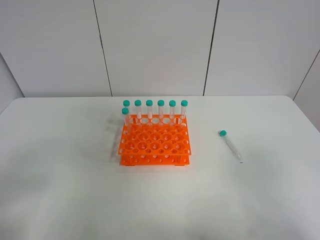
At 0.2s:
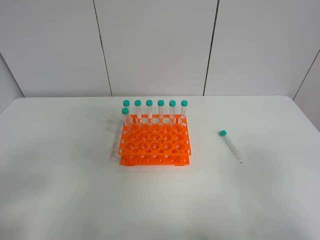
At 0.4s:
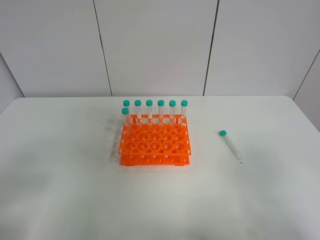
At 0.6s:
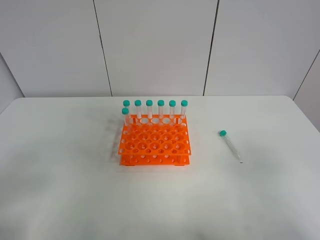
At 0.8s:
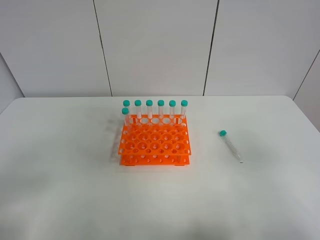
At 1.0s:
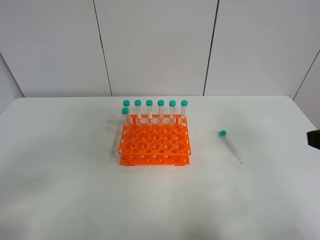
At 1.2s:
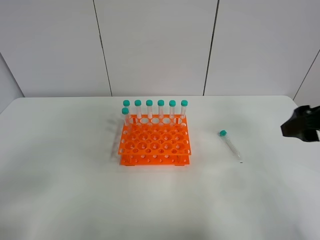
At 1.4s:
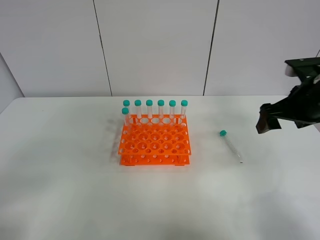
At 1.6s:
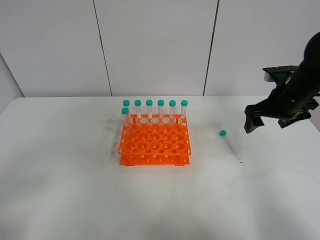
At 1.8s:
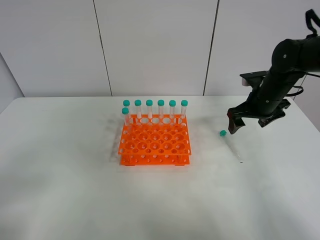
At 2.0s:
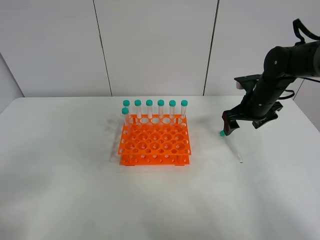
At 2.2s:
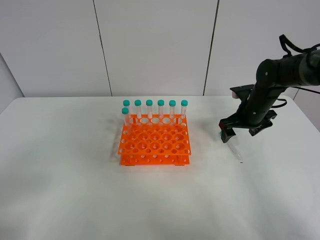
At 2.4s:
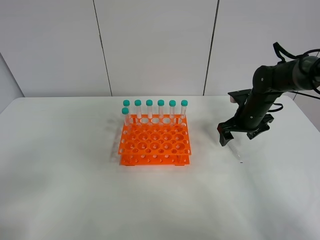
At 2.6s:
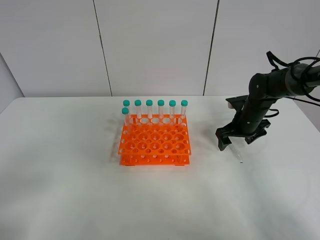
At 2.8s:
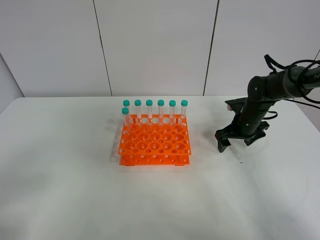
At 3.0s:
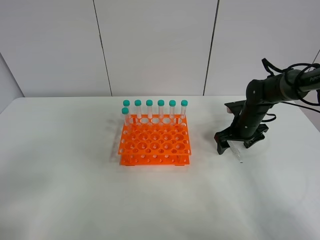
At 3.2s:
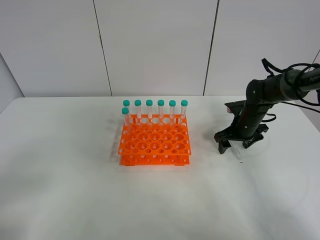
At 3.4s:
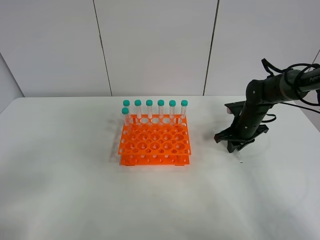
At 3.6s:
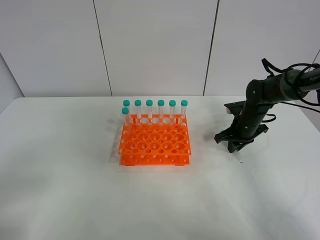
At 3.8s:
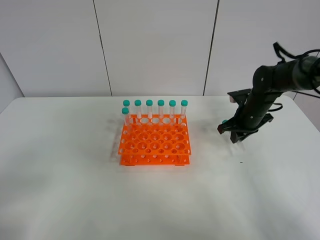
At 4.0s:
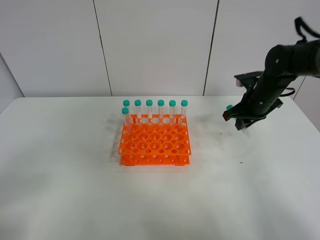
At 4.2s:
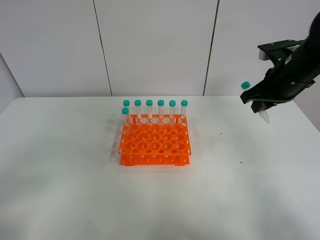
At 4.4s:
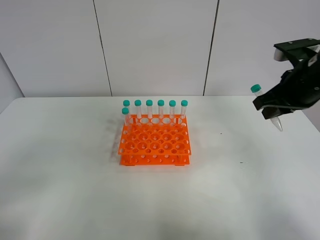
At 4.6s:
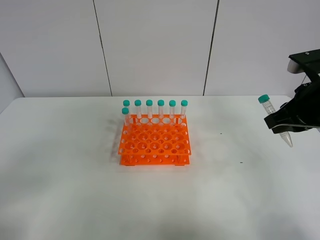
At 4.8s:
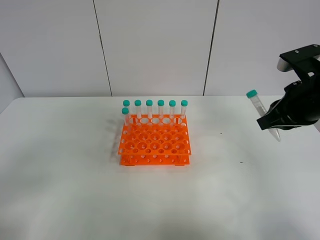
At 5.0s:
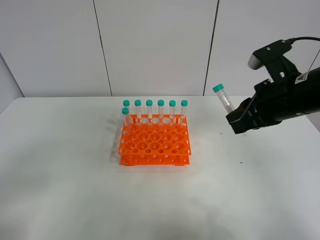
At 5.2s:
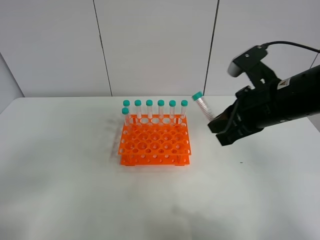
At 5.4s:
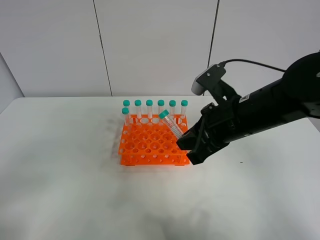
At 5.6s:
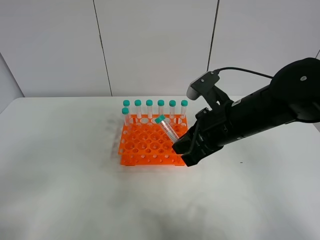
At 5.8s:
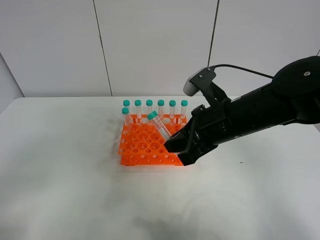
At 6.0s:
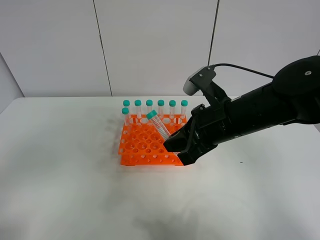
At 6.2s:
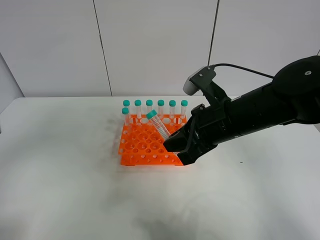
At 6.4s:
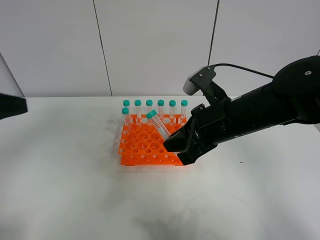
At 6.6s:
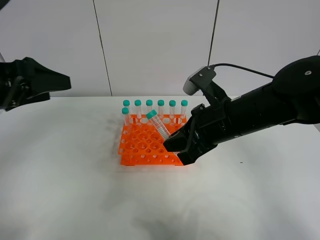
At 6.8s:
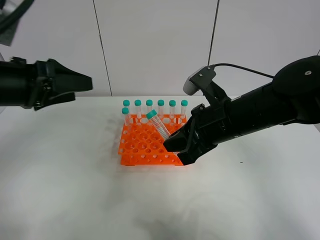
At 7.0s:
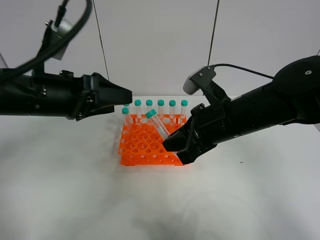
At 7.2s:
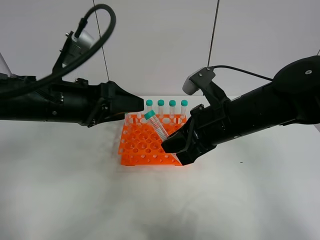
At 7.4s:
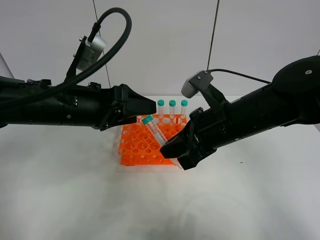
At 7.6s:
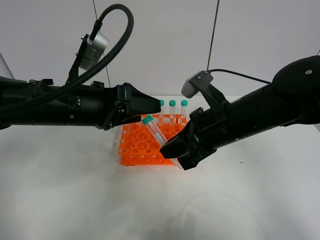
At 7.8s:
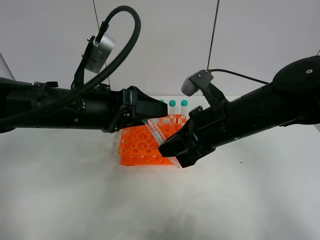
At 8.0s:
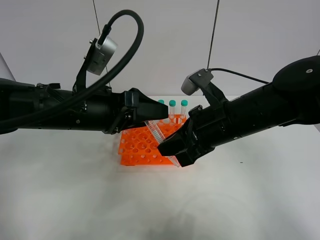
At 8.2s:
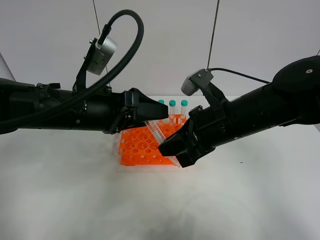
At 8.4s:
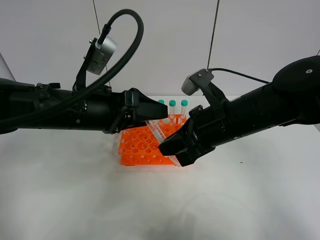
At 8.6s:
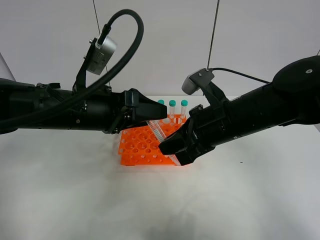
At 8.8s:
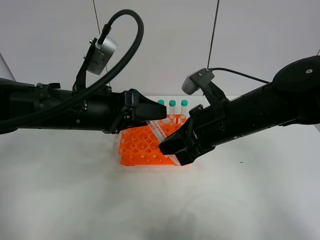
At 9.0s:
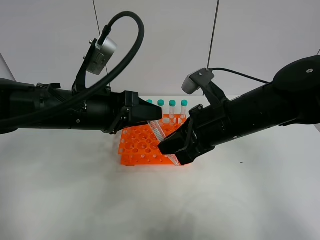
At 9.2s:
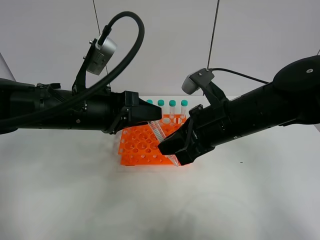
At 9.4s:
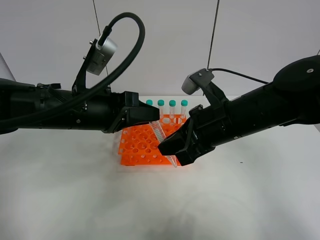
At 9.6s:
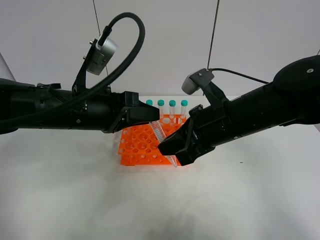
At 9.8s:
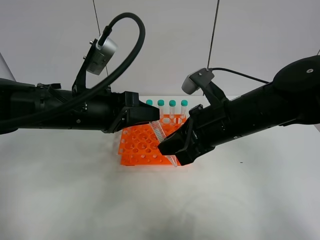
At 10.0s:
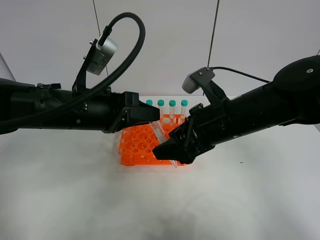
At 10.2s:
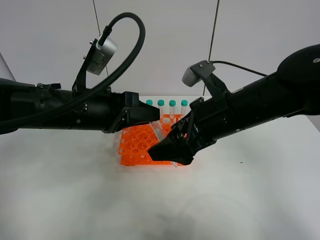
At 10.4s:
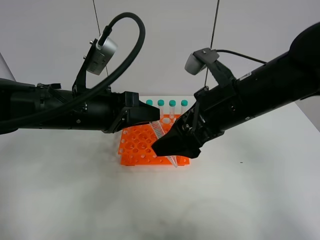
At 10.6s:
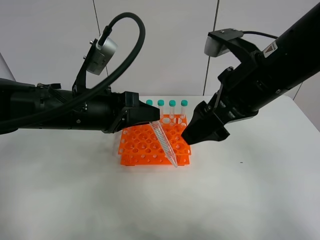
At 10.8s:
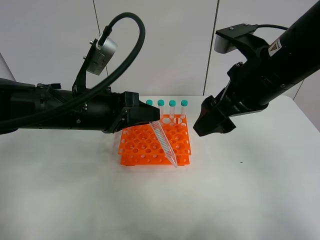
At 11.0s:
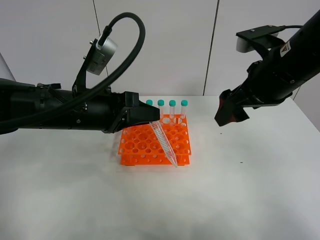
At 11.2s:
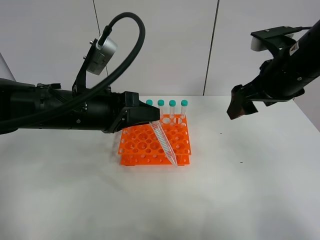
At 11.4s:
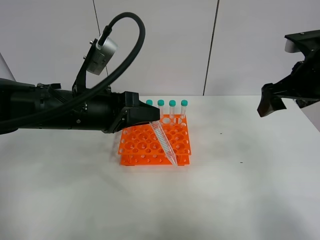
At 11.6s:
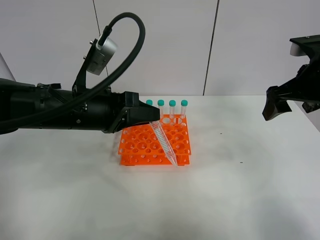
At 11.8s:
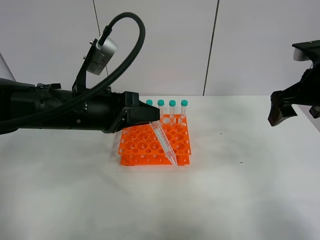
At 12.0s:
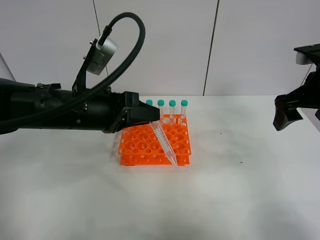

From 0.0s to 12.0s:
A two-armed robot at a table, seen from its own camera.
Task of the whole recording: Put the test tube on the table back onto the test tube rack.
Step, from 0.0s to 3.6s: Pick up the test tube with the right gripper.
Step, from 3.8s to 10.8s: Move the test tube from the right gripper to the left gripper.
From 0.0s to 1.6s: The right gripper shifts roughly 35 cm forward.
From 1.6s to 3.0s: The right gripper travels downward and forward by some 15 cm.
From 3.0s to 4.4s: The right gripper is displaced upward and backward by roughly 25 cm, and closes.
From 4.4s to 6.0s: The right gripper goes roughly 15 cm to the left.
From 6.0s to 7.6s: The left gripper moves forward and to the right, about 25 cm.
From 7.6s to 9.0s: The left gripper closes.
From 9.0s to 10.4s: The right gripper heads upward, covering some 5 cm, and opens its fingers. The left gripper closes.
From 10.4s to 12.0s: The right gripper goes approximately 15 cm to the right.

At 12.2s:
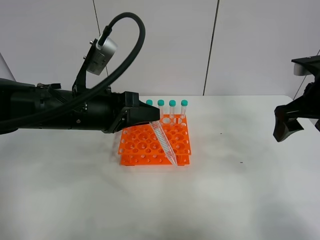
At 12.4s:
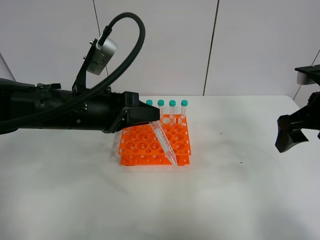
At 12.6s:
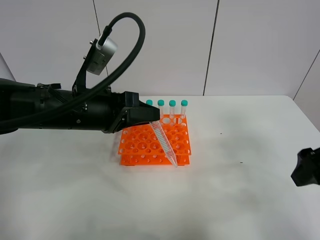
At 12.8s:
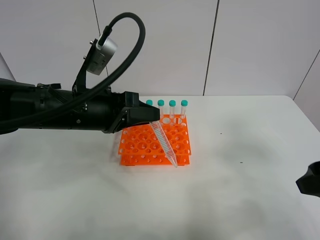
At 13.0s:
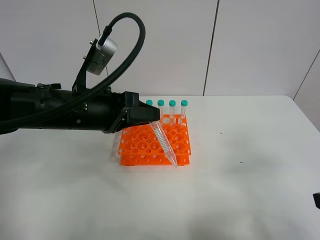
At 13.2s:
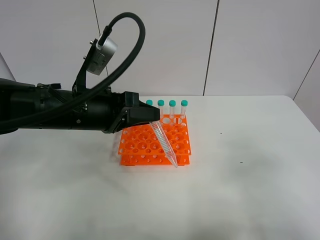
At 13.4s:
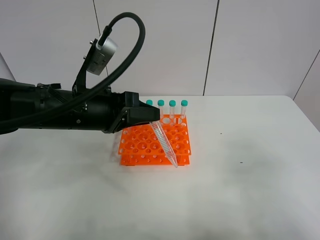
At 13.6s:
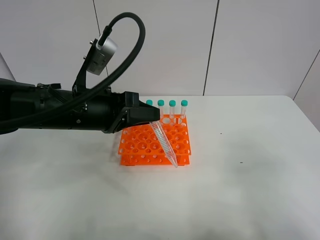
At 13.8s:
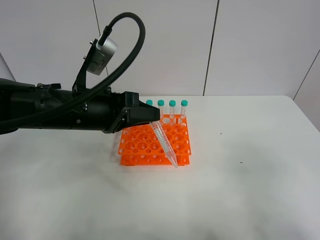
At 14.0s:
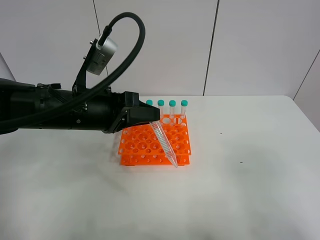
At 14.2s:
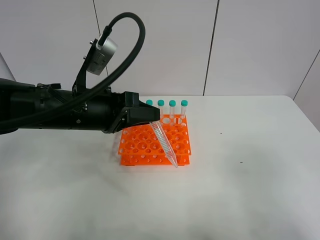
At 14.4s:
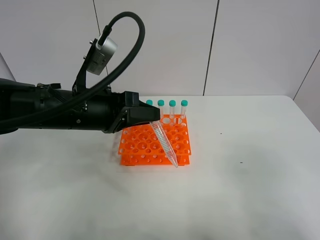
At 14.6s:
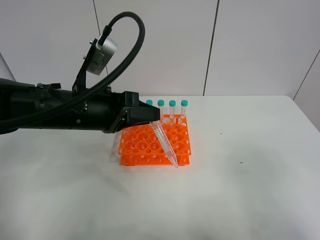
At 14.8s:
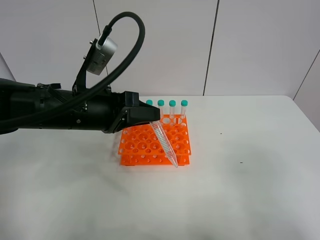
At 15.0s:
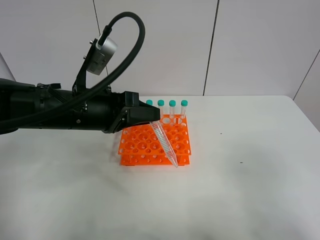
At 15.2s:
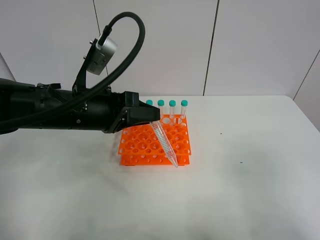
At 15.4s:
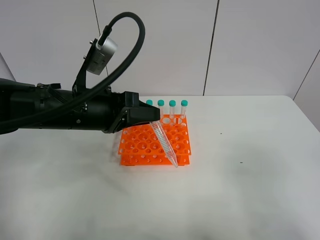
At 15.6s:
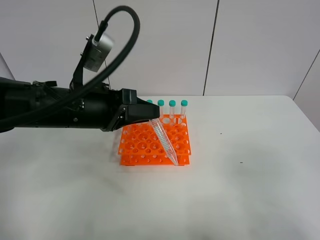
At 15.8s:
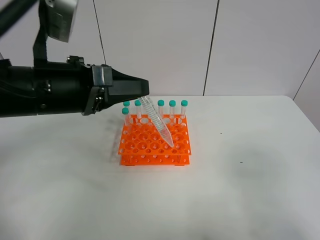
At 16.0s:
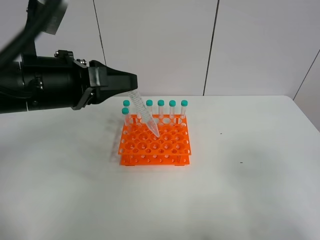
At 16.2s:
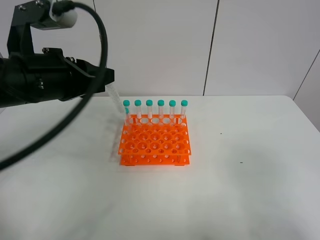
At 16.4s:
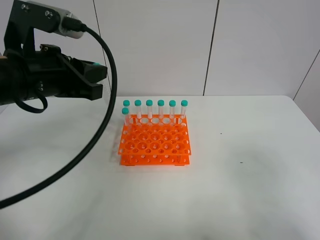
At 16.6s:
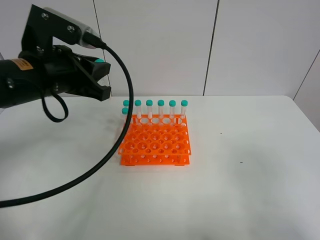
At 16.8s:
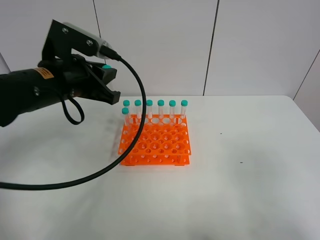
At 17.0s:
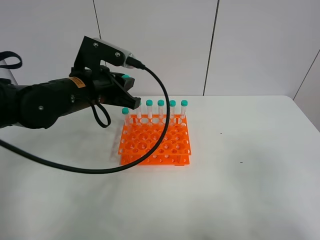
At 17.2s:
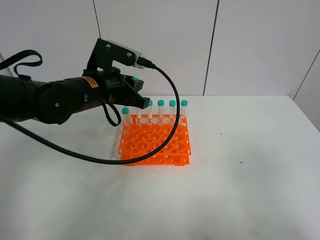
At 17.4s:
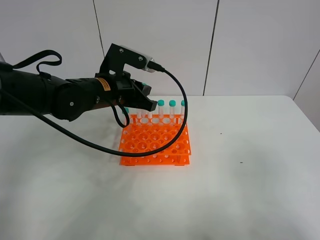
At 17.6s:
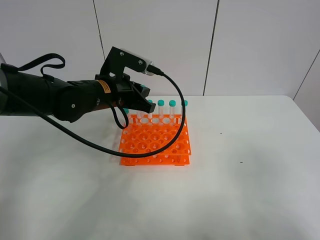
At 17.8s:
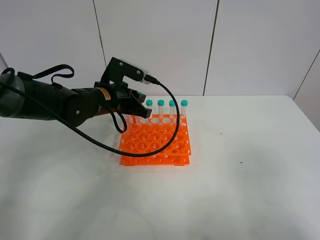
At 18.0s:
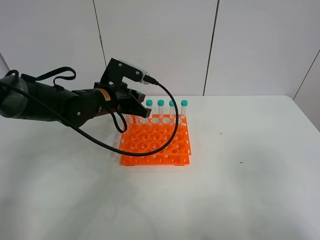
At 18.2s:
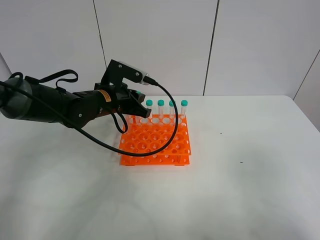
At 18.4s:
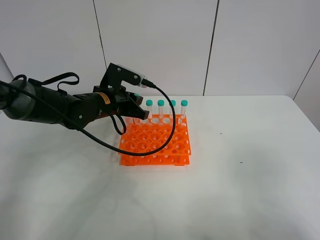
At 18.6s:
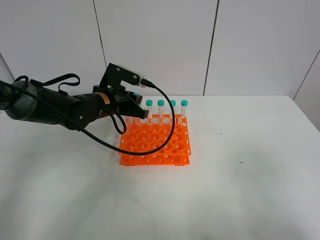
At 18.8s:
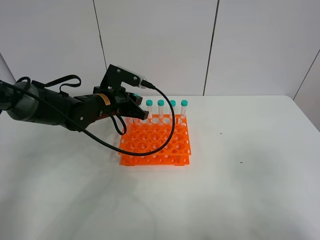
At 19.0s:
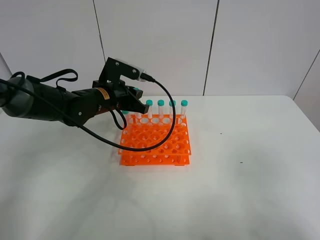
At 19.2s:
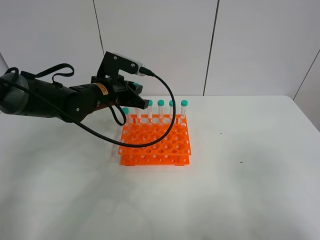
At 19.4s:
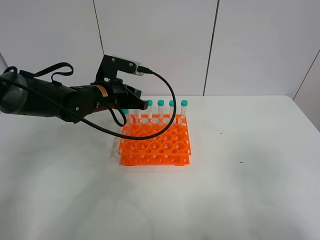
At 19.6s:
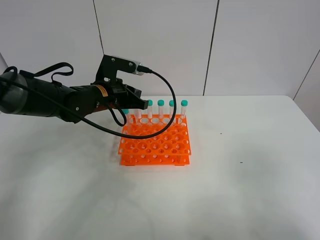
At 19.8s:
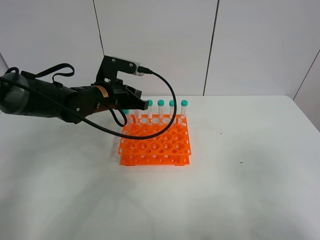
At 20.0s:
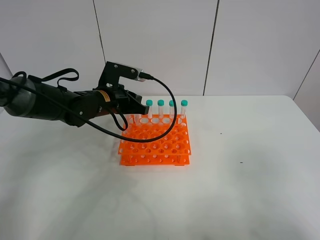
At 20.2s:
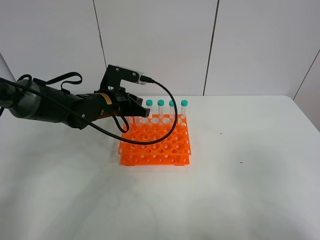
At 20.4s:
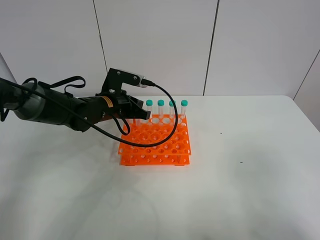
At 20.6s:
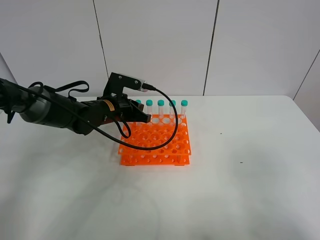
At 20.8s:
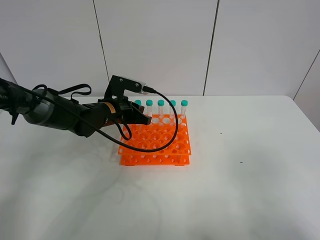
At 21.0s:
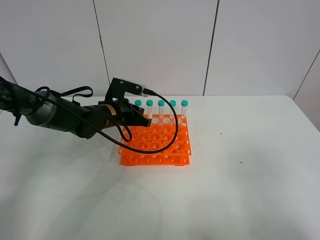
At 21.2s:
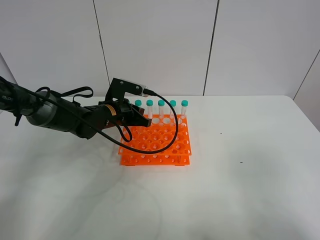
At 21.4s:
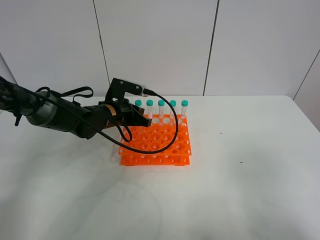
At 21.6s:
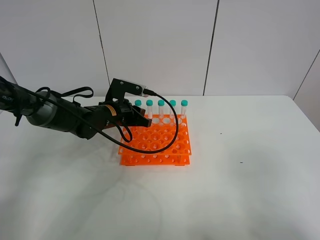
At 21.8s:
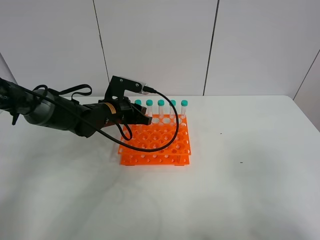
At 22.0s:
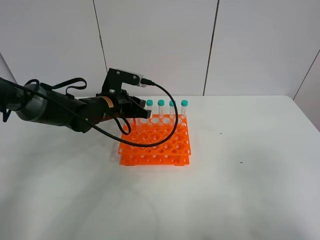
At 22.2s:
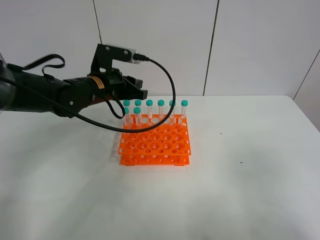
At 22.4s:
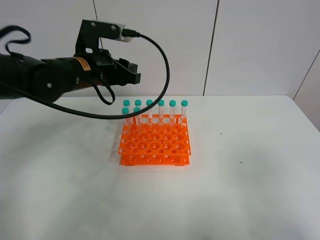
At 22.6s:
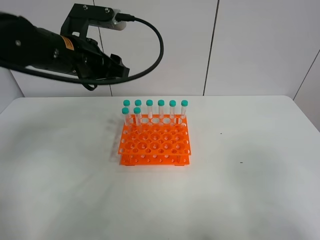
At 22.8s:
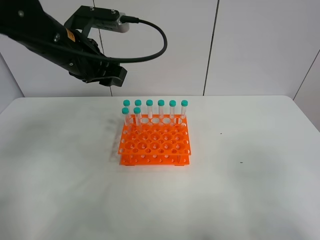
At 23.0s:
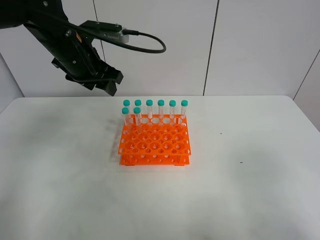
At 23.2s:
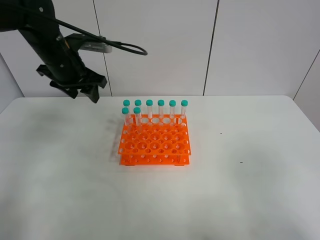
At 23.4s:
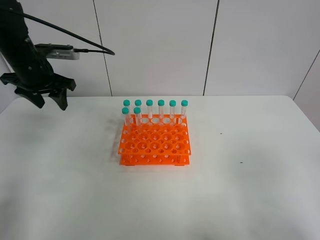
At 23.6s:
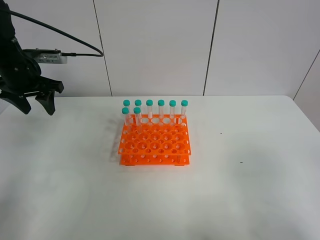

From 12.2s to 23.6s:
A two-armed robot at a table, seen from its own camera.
Task of the whole recording: Put the test tube on the table back onto the test tube rack.
Step, from 12.2s to 21.6s: Place the test tube on the test tube rack with the left gripper.
From 12.2s to 13.6s: The right gripper heads backward, covering some 25 cm.
From 15.0s to 16.4s: The left gripper shifts some 10 cm upward and to the left.
From 16.4s to 17.8s: The left gripper is displaced downward, forward and to the right by approximately 20 cm.
From 17.8s to 19.4s: The grippers move only a little.
From 19.4s to 20.8s: The left gripper travels downward by about 5 cm.
From 20.8s to 22.2s: The left gripper is displaced upward by some 10 cm, and opens its fingers.
From 22.2s to 23.6s: The left gripper goes approximately 15 cm to the left, and opens.
